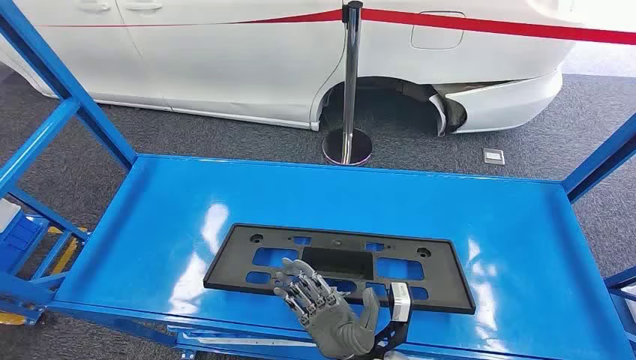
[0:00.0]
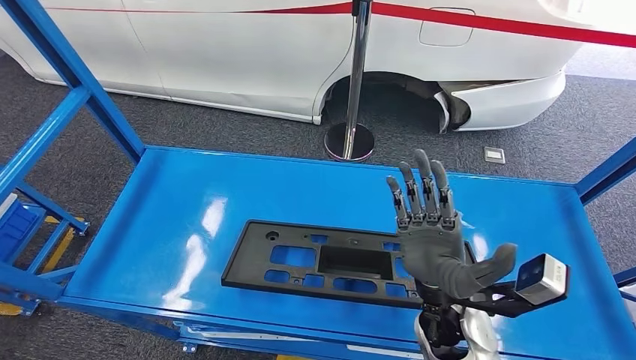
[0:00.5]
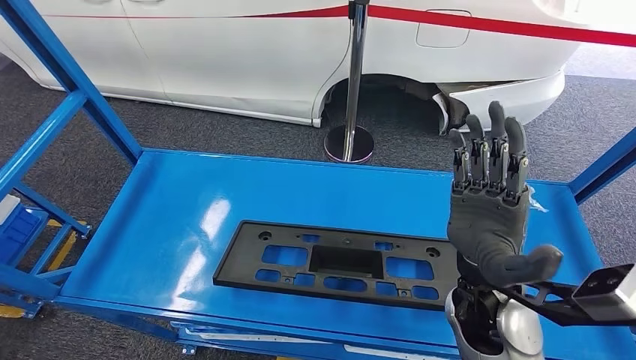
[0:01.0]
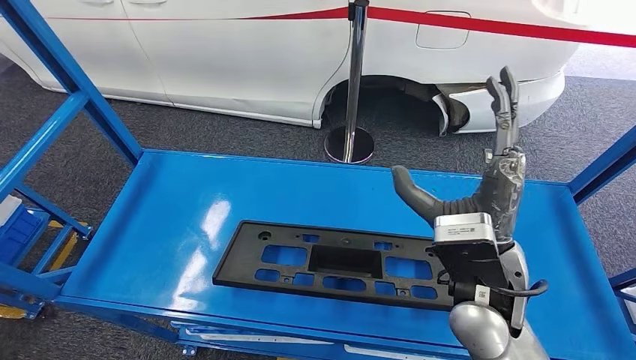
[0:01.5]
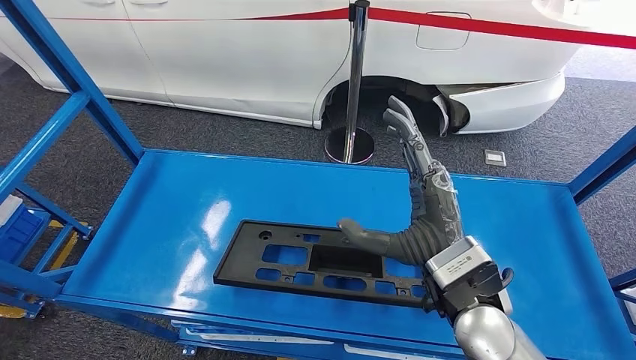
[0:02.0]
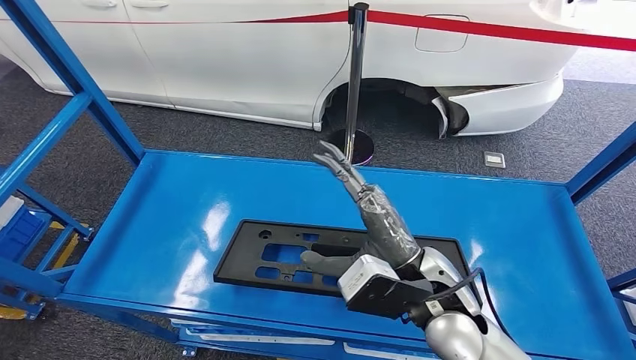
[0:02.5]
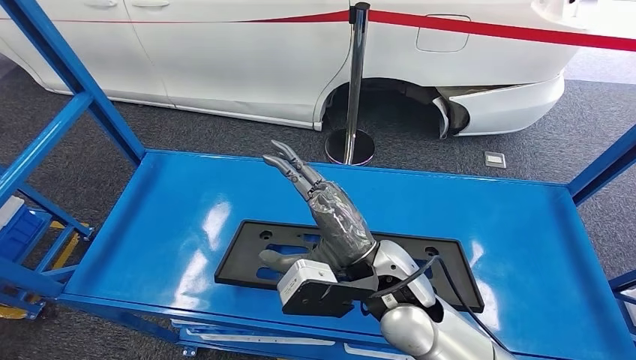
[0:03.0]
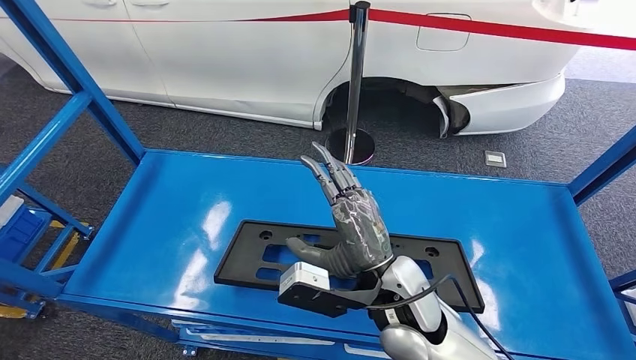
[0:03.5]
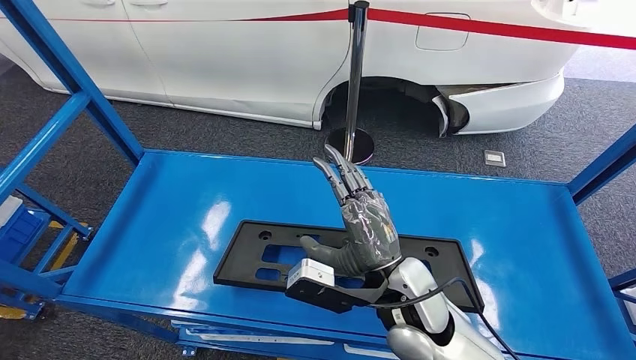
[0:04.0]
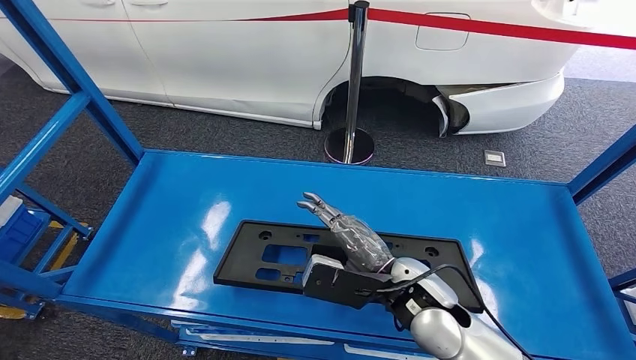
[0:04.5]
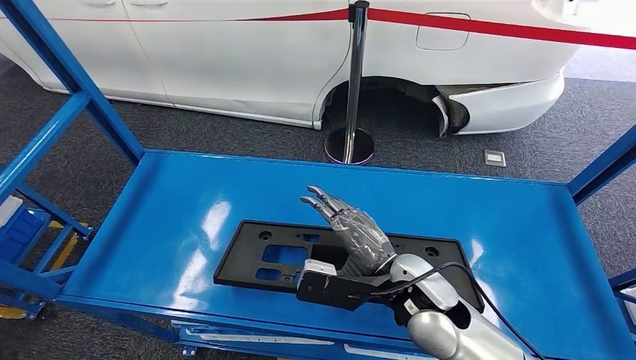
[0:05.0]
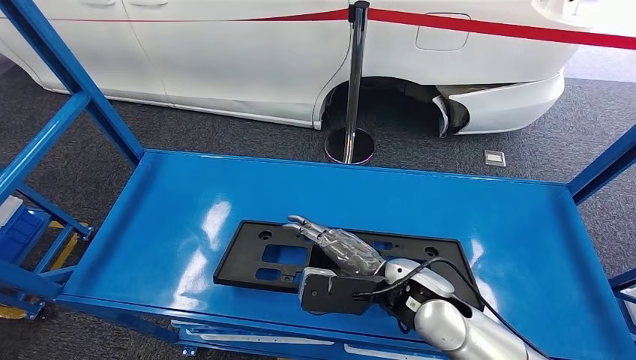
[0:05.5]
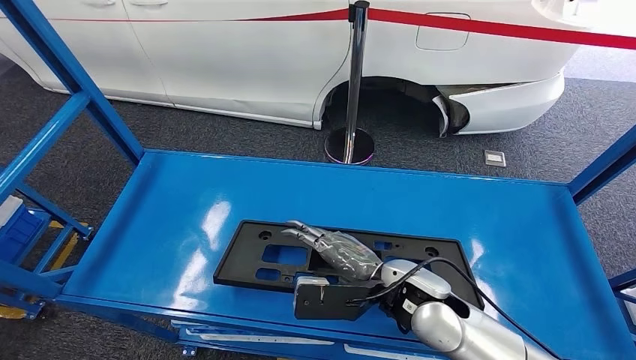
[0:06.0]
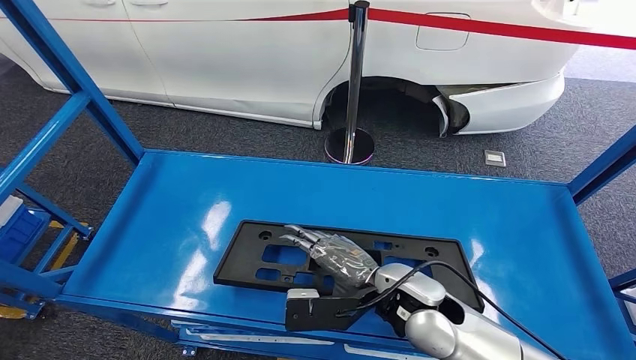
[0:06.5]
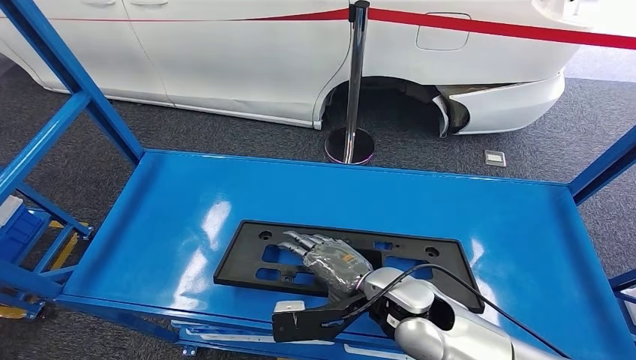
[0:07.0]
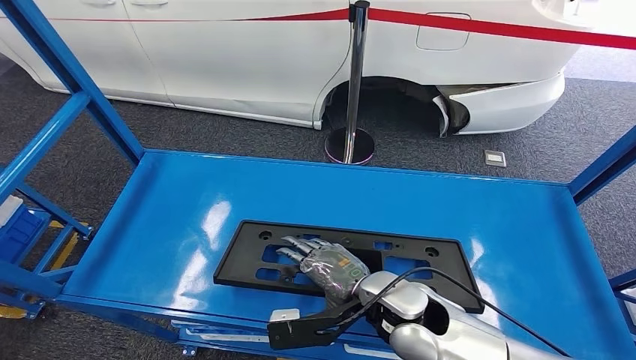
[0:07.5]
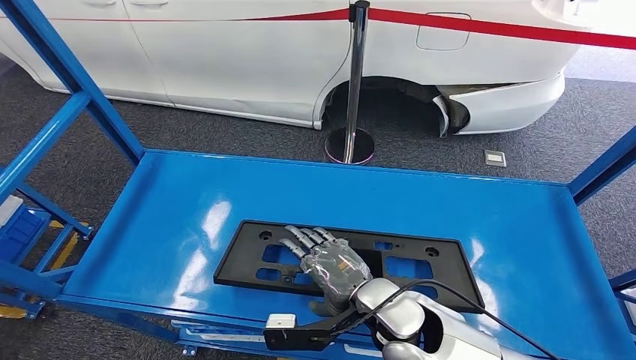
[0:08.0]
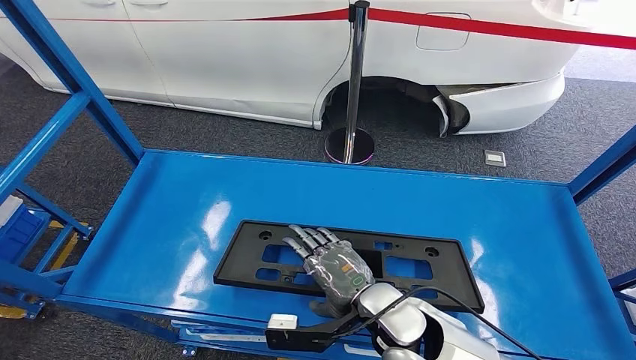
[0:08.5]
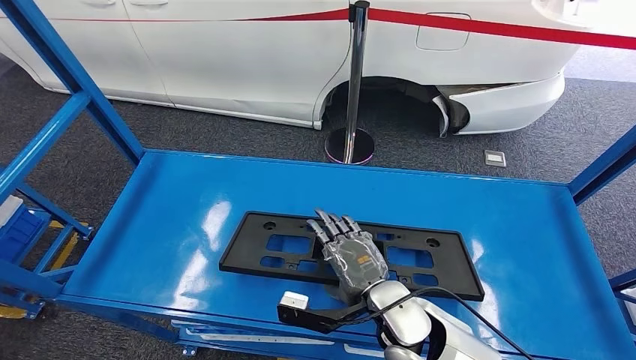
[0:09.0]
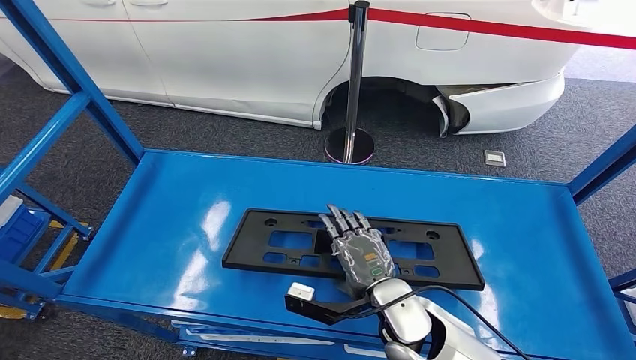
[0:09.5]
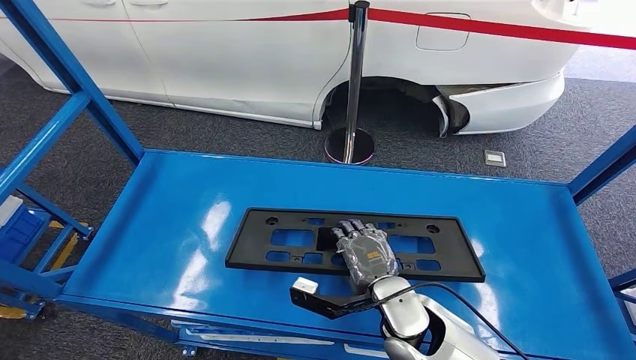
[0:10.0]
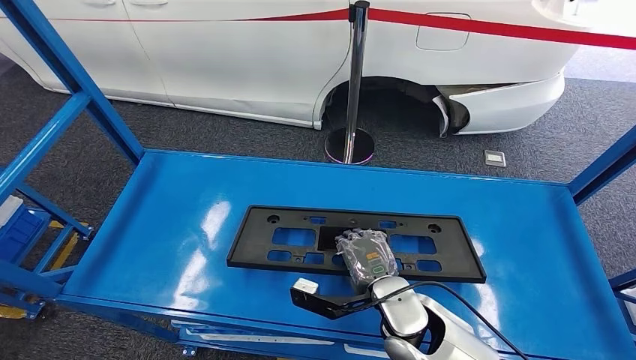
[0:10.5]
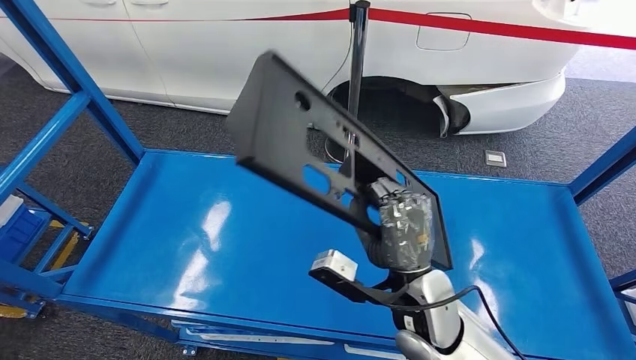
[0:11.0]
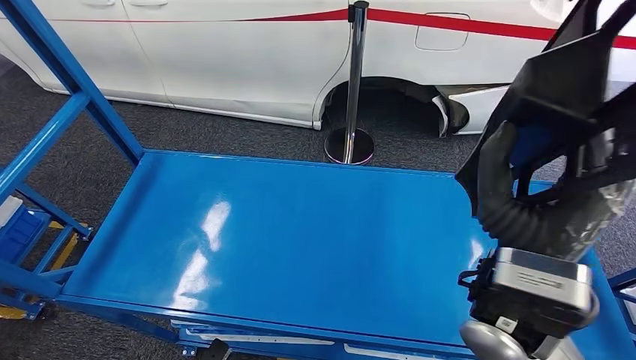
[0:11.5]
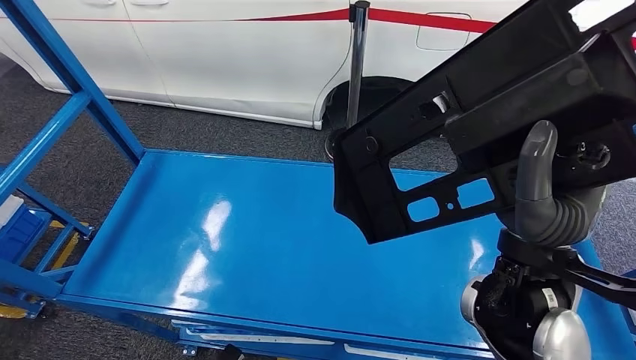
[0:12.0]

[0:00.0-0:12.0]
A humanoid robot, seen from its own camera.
Step, 0:00.0 to 0:11.0: Pick up the large material from the shelf.
0:02.0 to 0:04.0: The right hand shifts about 5 cm downward.

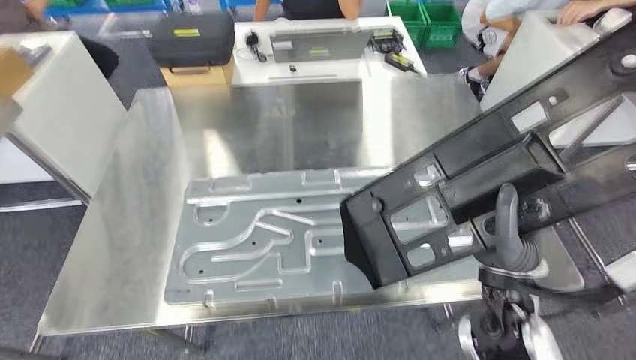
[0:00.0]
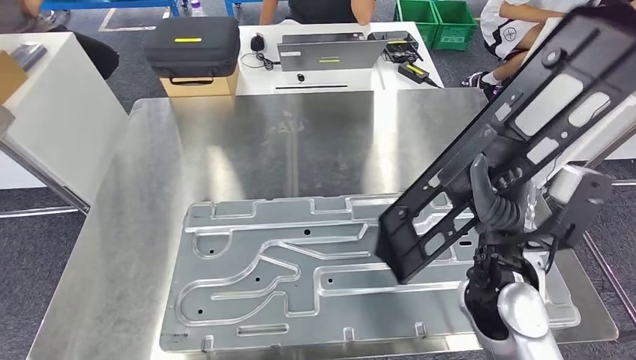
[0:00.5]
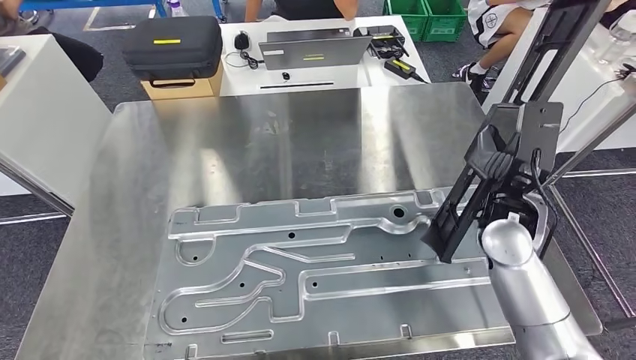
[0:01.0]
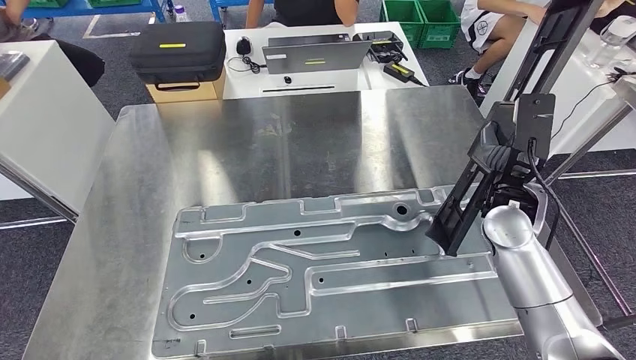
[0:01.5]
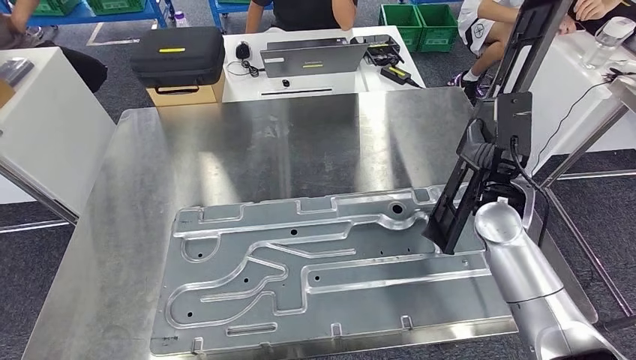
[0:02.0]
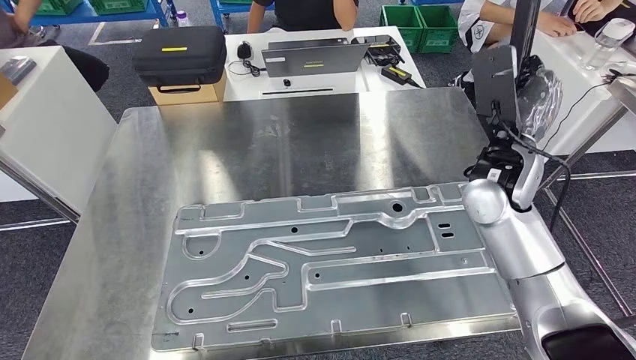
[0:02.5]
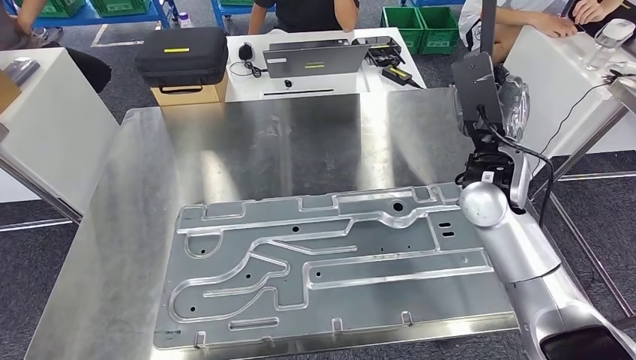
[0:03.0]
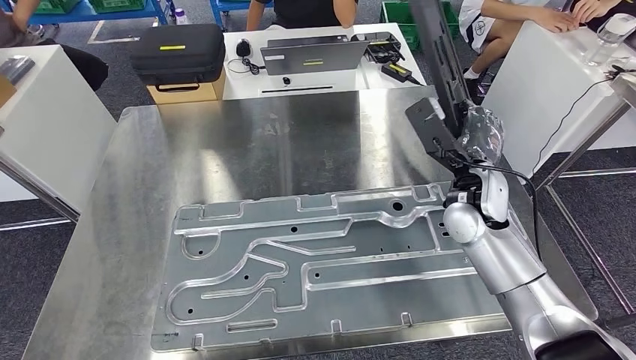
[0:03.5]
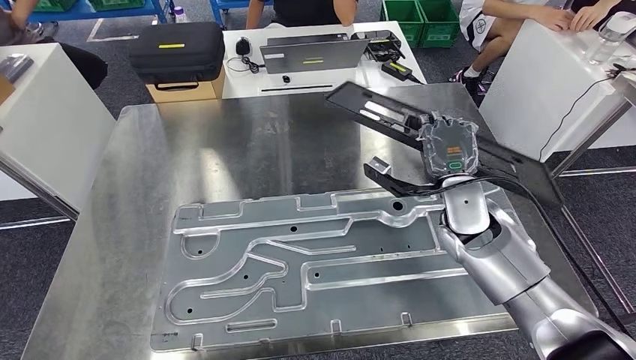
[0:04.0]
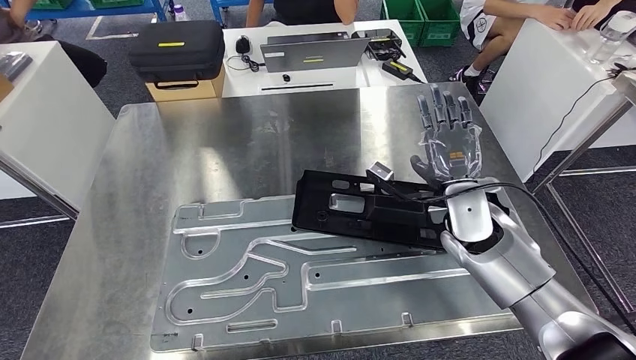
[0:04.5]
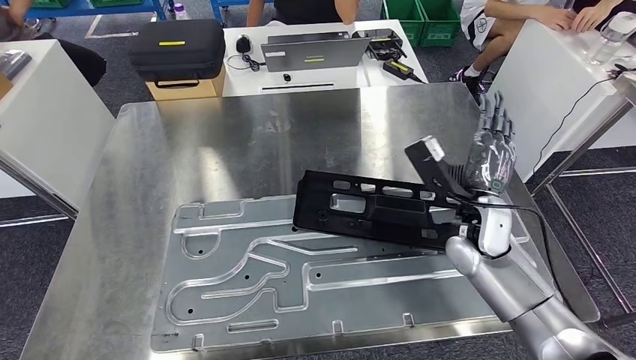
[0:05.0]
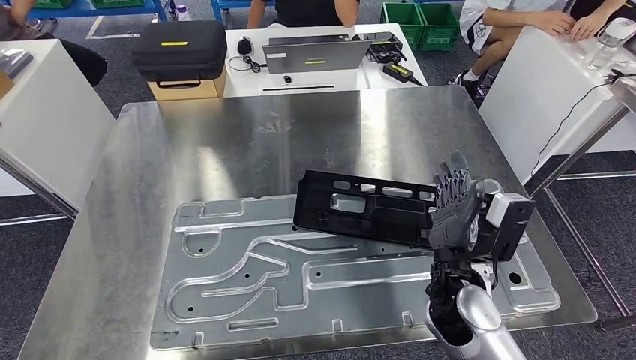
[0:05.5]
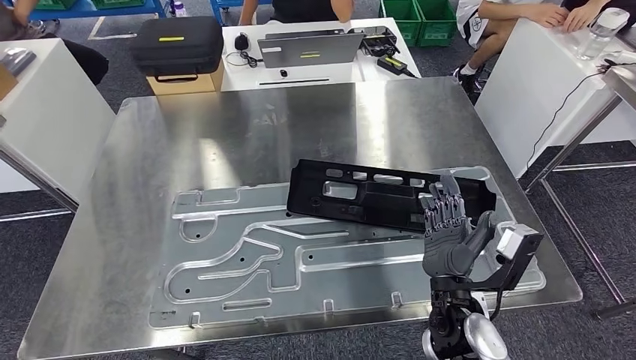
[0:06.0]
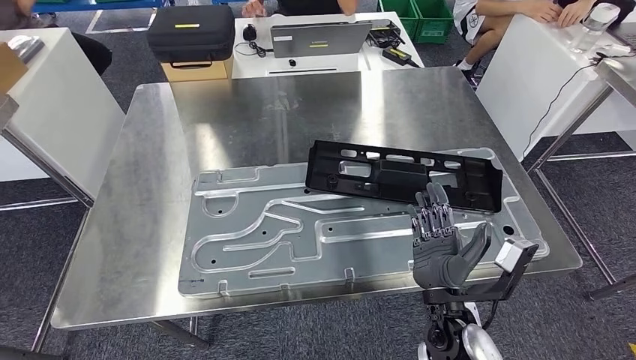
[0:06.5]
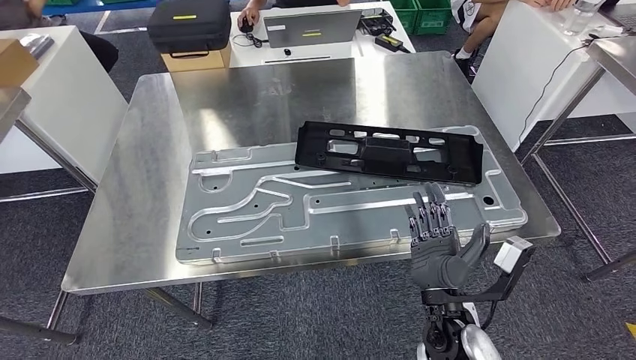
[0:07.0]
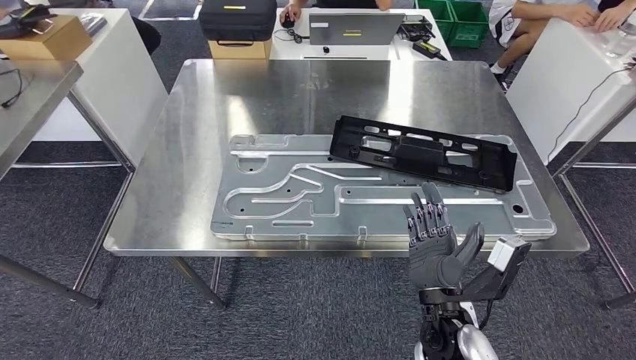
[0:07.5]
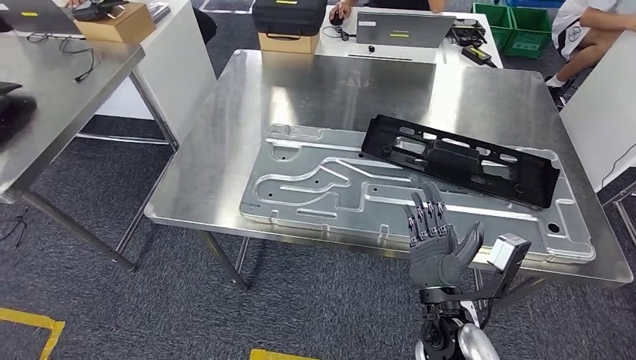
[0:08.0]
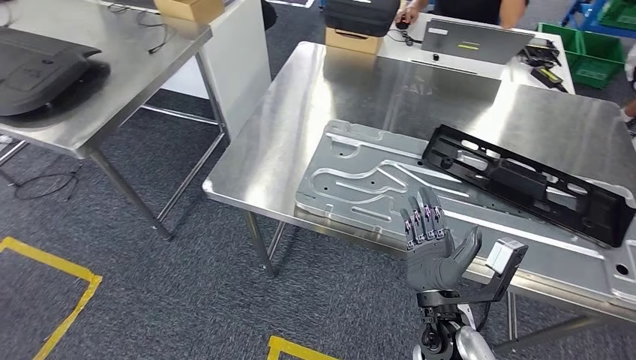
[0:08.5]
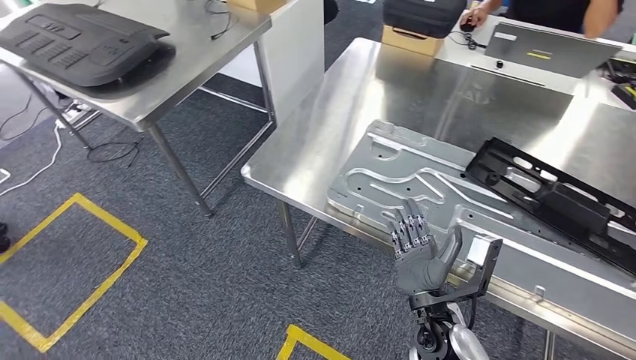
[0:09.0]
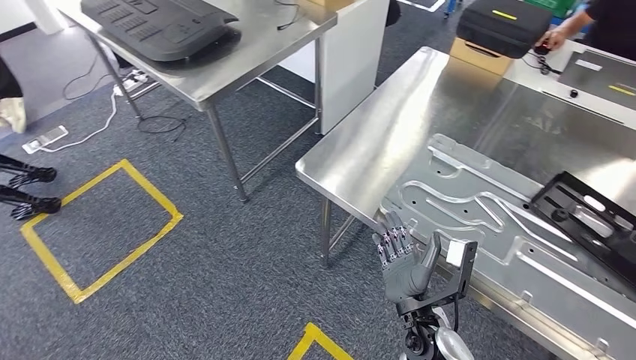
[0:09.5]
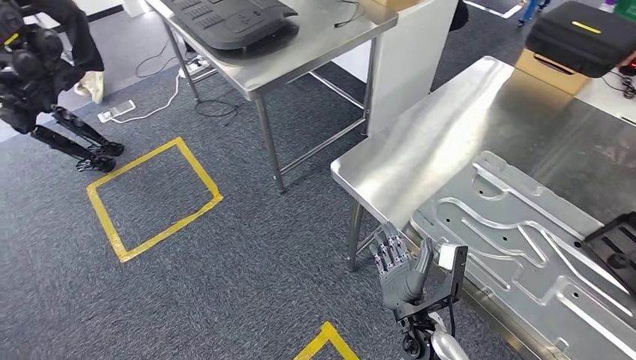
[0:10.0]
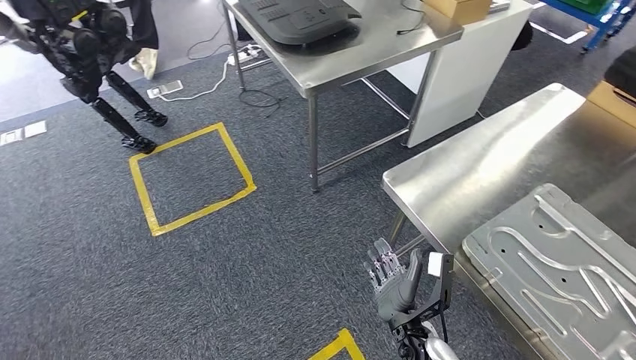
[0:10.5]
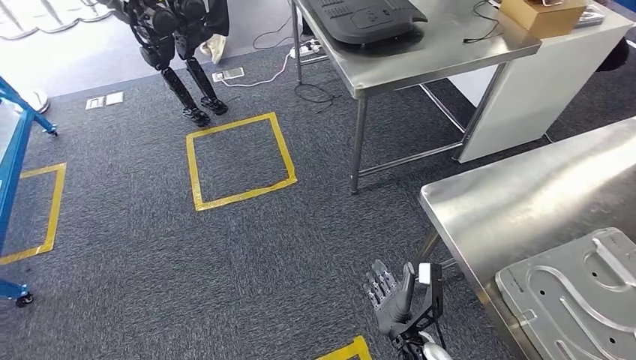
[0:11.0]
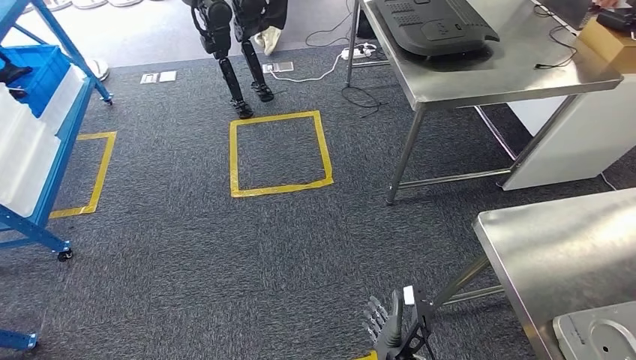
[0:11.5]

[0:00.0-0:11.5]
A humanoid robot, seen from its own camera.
Step, 0:01.5 to 0:07.0: Insert the large material into the corresponding slot on the workbench.
